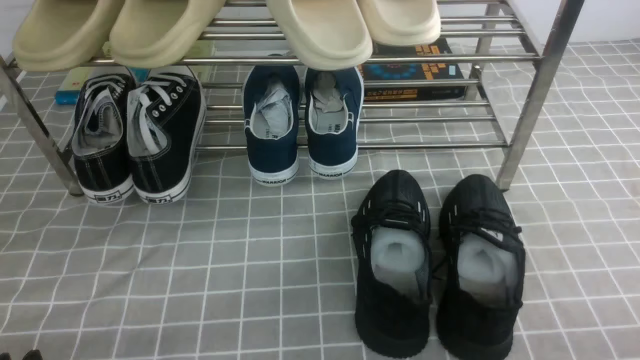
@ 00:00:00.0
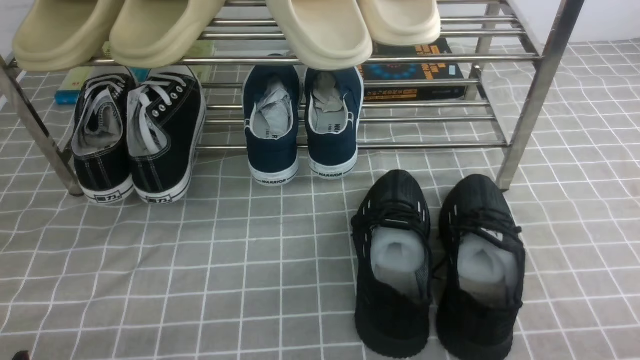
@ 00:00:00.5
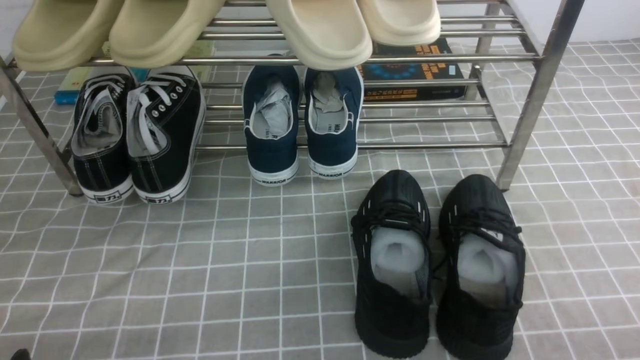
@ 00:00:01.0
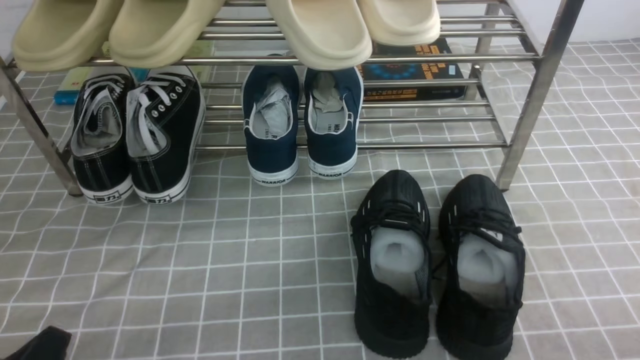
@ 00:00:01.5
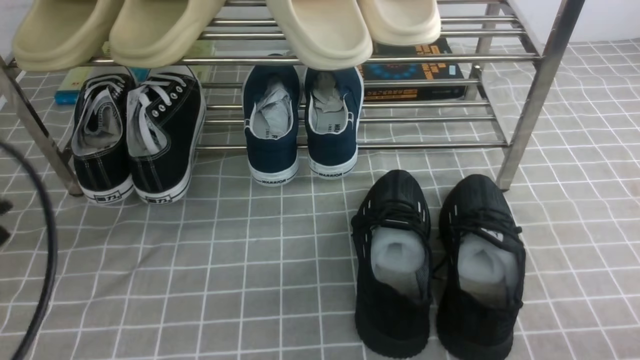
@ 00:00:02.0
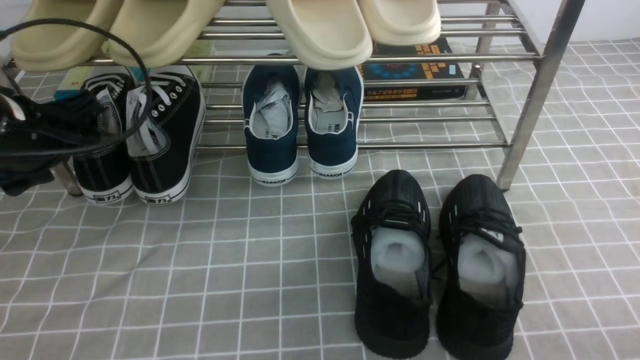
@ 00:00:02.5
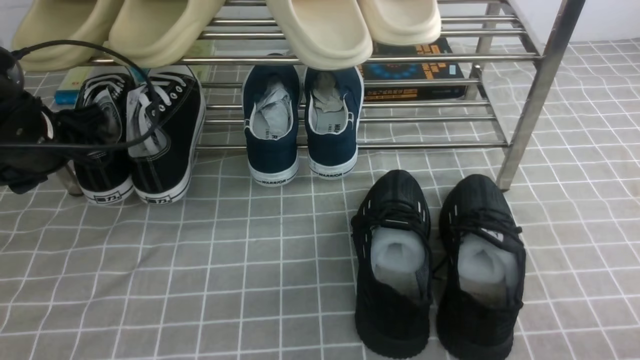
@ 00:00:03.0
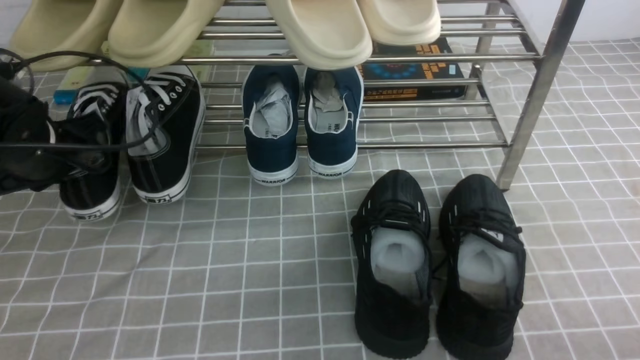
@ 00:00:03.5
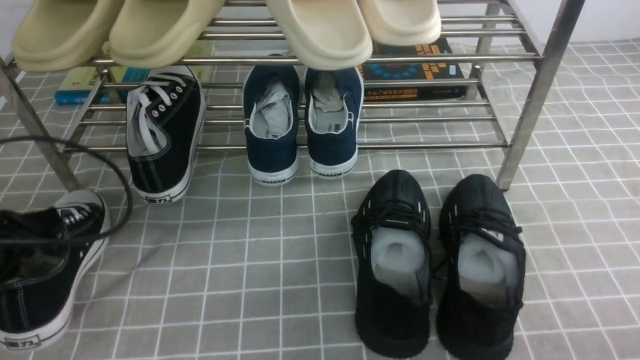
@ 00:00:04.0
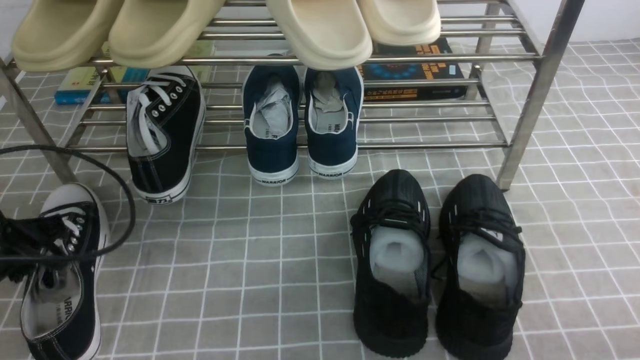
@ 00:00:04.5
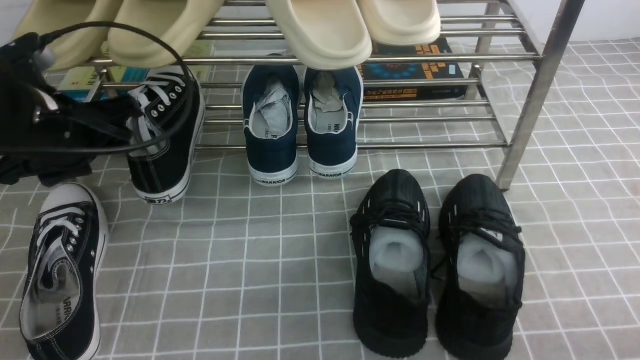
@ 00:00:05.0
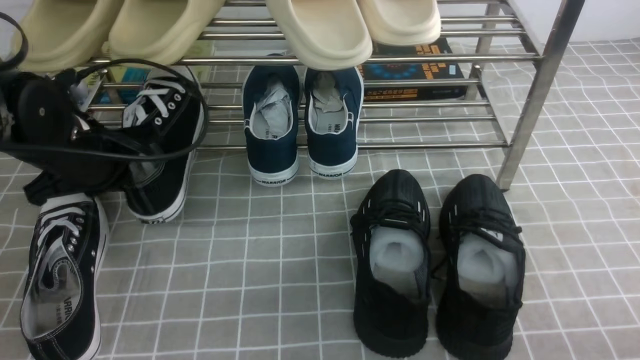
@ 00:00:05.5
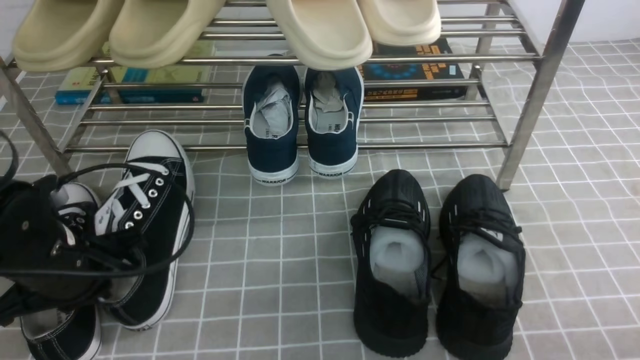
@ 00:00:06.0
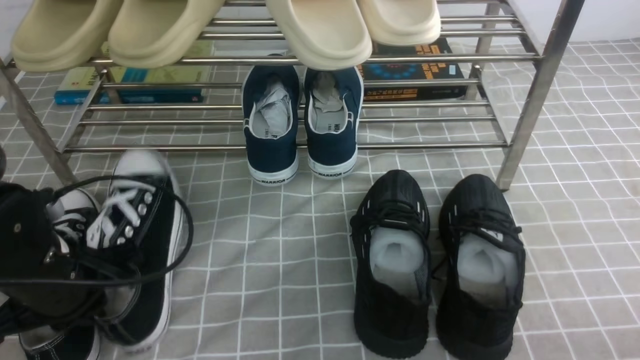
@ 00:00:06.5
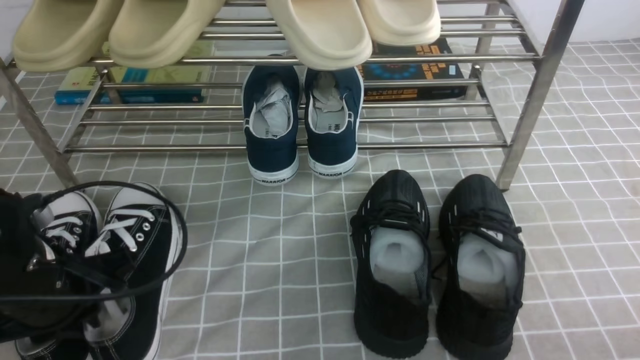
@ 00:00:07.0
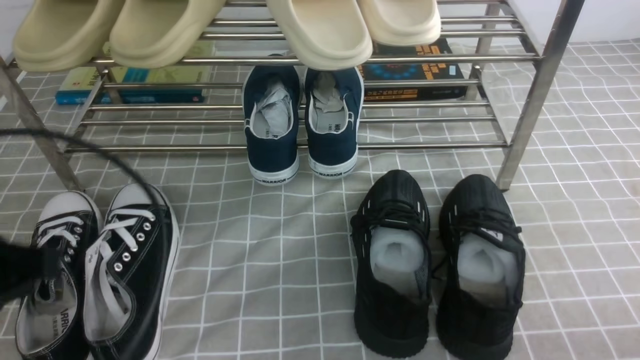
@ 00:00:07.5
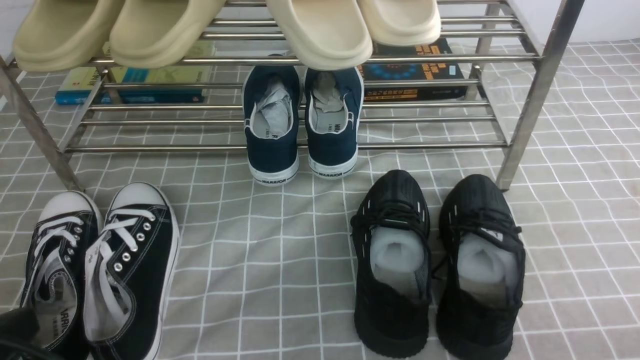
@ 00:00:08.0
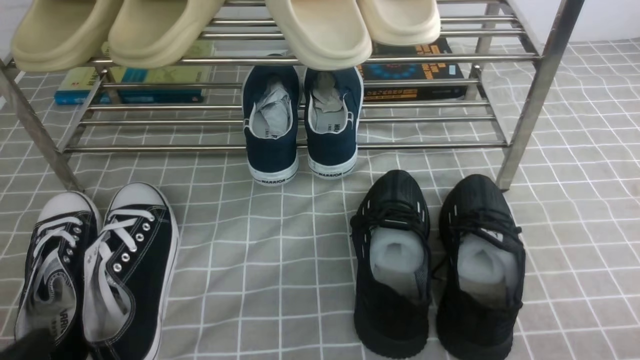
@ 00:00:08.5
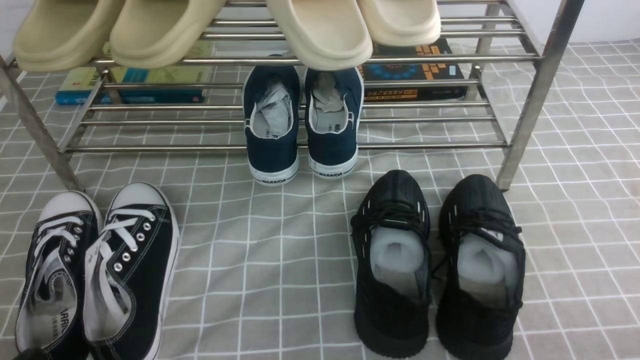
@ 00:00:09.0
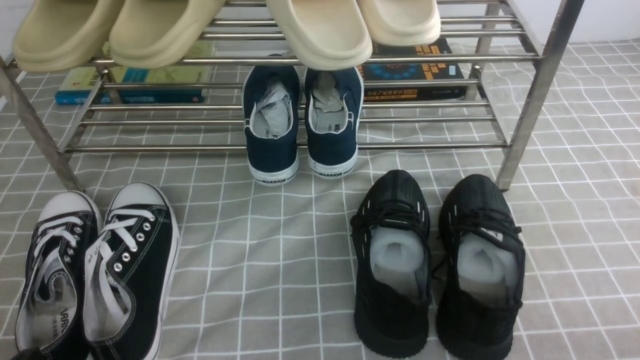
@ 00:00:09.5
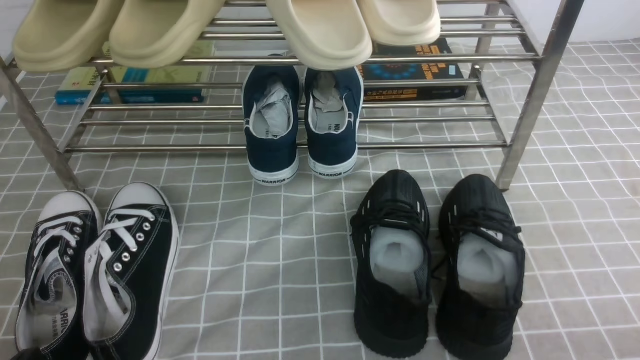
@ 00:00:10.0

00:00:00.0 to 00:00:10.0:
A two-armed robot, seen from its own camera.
Step, 00:00:00.0 to 00:00:03.0: use the left arm to clamp a shoe on the left side of the shoe rack.
Step, 00:00:03.5 to 00:00:04.5: Use your left arm to remove the clamped shoe from the shoe rack and put it down.
Step, 00:00:05.5 to 00:00:07.0: Use your left arm to remove the clamped shoe from the shoe rack and put it down.
00:00:00.0 to 00:00:02.0: The left gripper moves upward and forward, about 15 cm.
00:00:02.0 to 00:00:04.0: The left gripper is displaced forward and downward by roughly 10 cm, and opens, then closes again.
00:00:04.0 to 00:00:06.0: The left gripper travels forward and back again, approximately 10 cm each way, and opens and closes again.
00:00:06.0 to 00:00:08.0: The left gripper goes roughly 20 cm backward, and opens, then closes again.
00:00:08.0 to 00:00:10.0: The left gripper travels downward by approximately 10 cm.
